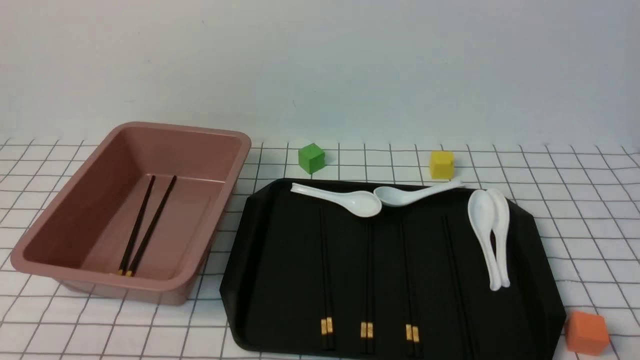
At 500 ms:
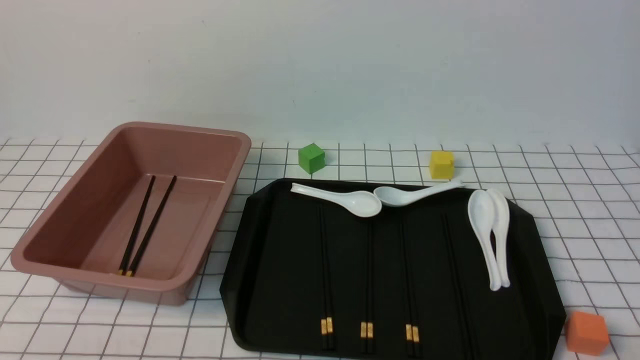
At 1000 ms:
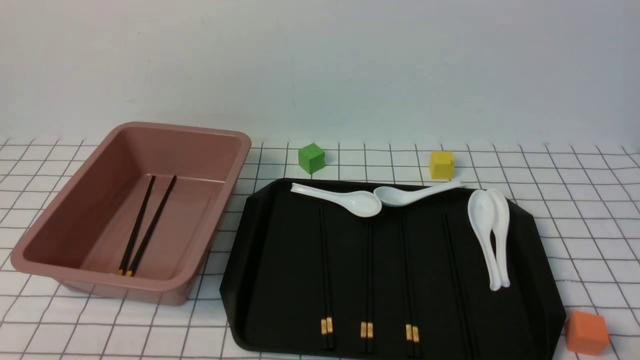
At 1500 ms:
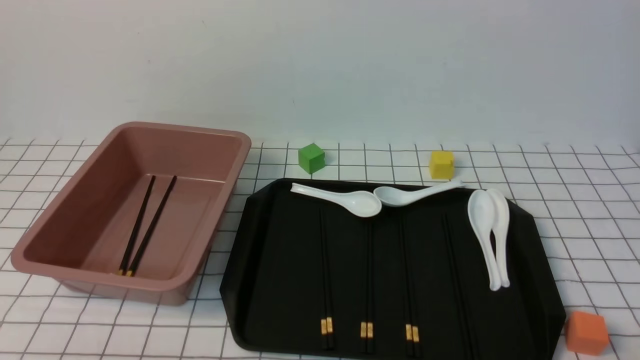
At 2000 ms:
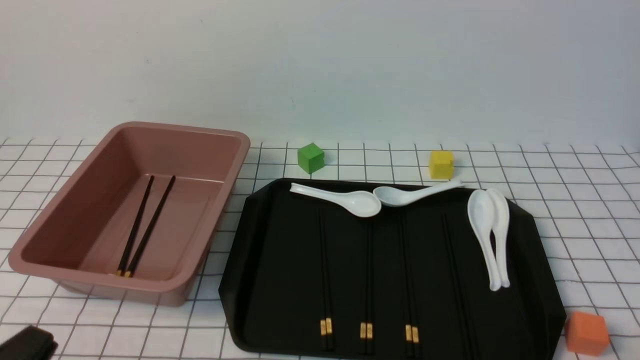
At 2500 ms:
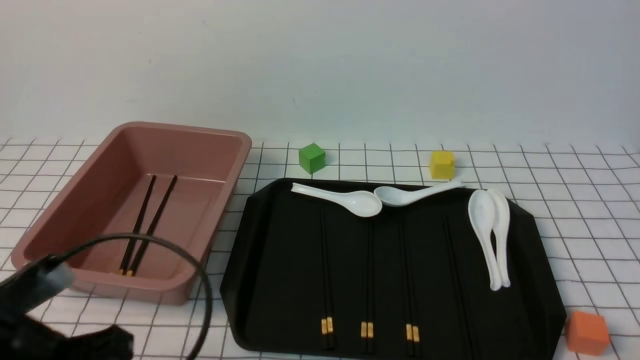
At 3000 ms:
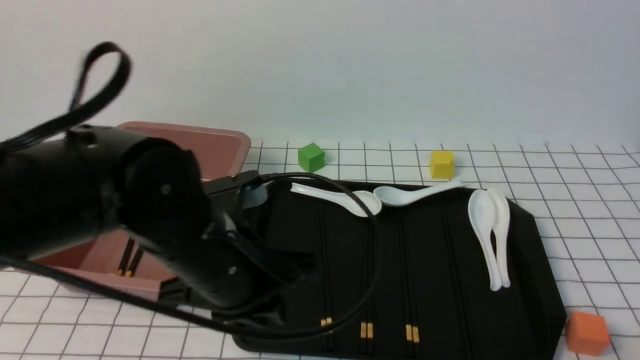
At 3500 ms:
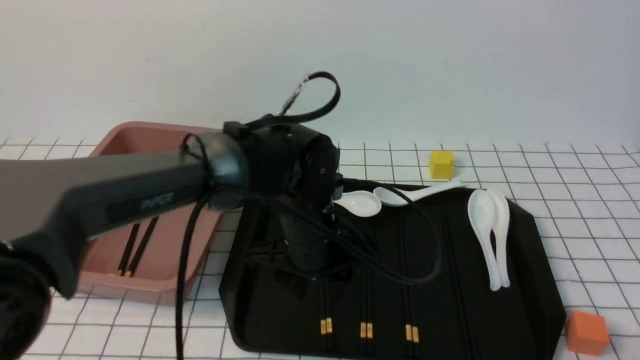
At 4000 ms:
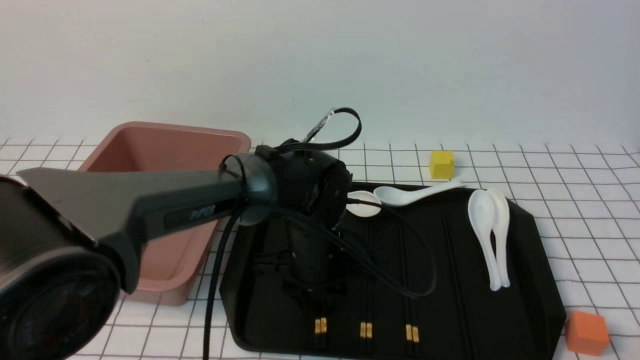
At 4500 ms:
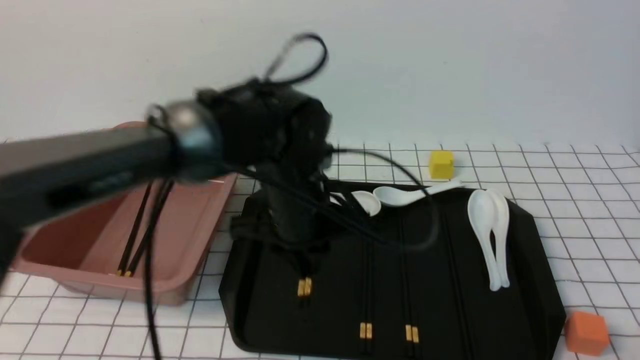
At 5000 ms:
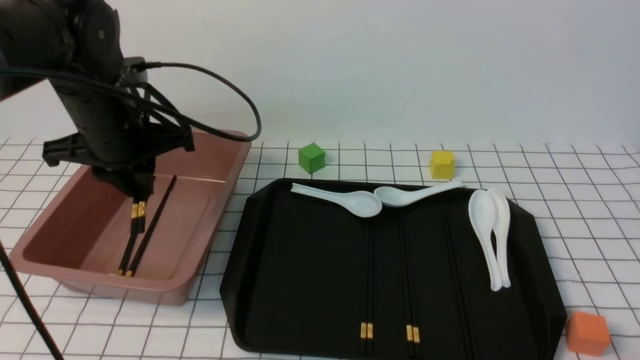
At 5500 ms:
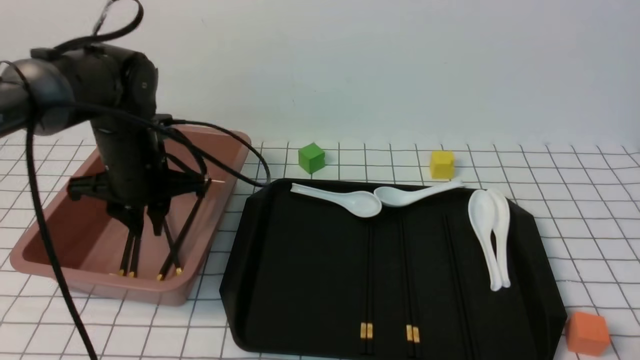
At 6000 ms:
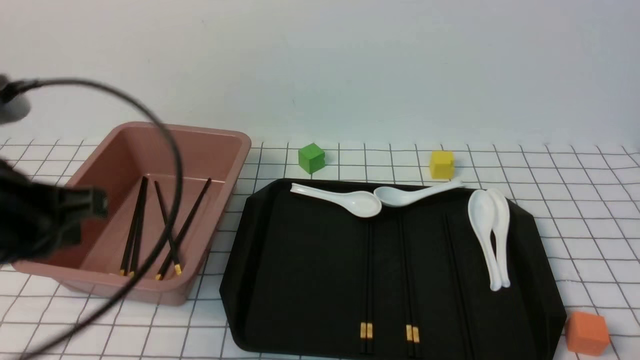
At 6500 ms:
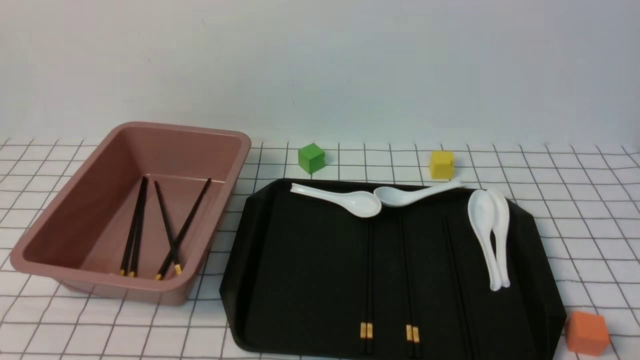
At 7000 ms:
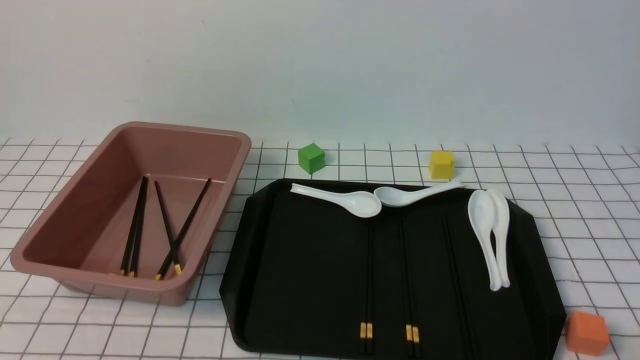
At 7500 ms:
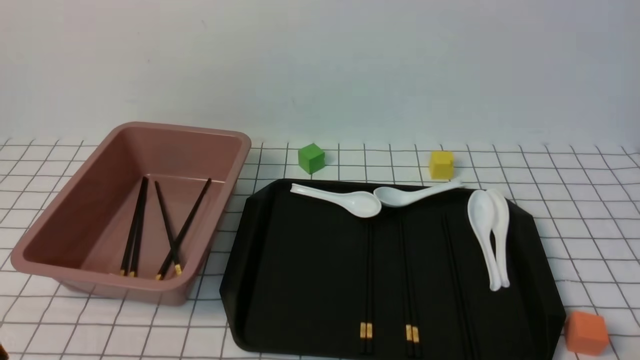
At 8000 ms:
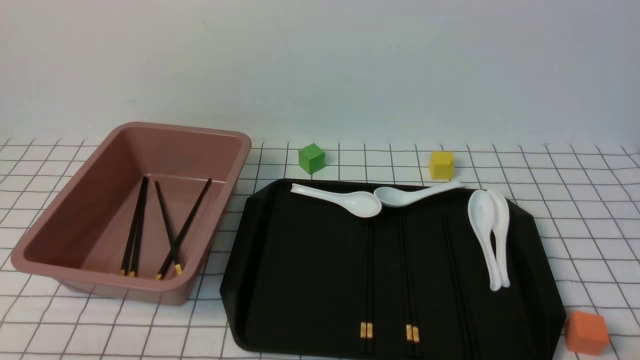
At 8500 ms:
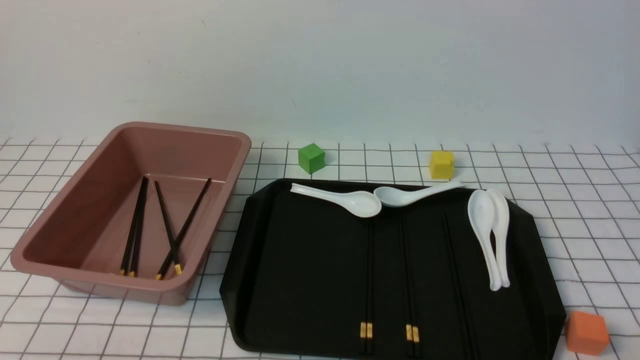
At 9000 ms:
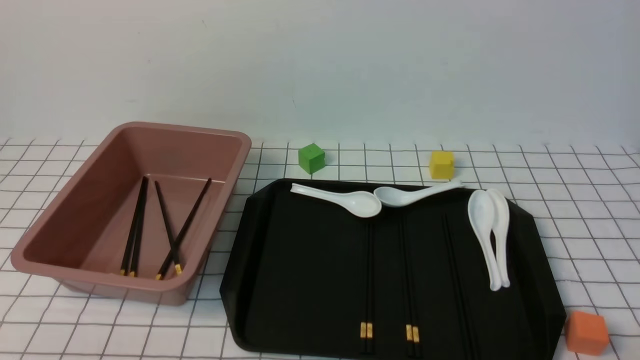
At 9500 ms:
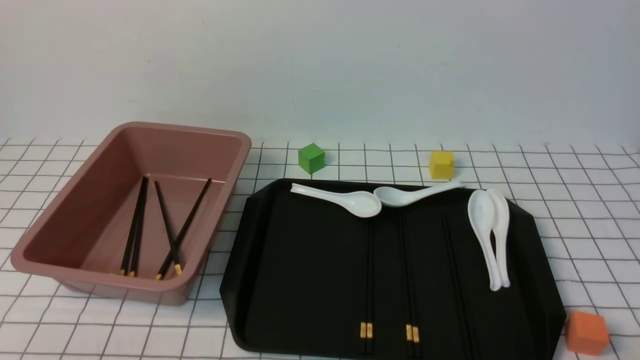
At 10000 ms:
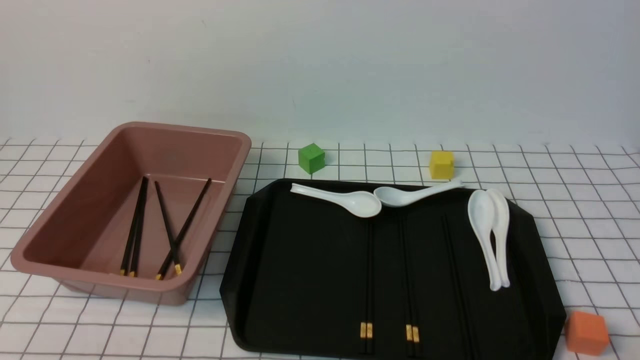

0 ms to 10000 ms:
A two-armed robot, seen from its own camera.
Step, 0 ms to 4000 ms: use the left arm to grab a pair of chopsticks.
Step, 4500 ms to 5500 ms: use the left arm to put the chopsticks into the lunch box.
2000 ms to 4000 ms: The left gripper shifts about 40 cm forward and to the right, and opens its fingers.
4000 ms to 6000 ms: The left gripper travels to the left, upward and backward by roughly 30 cm, and closes its fingers.
6000 ms to 8000 ms: The left gripper is displaced backward and downward by some 25 cm.
